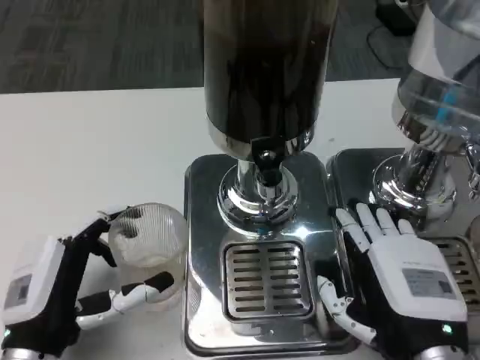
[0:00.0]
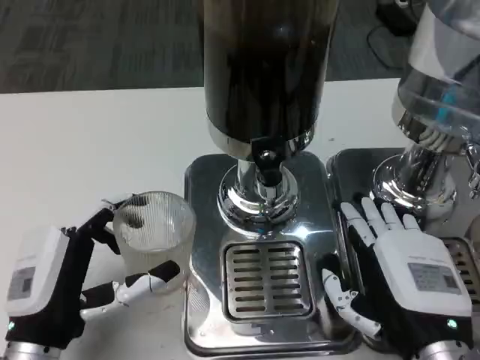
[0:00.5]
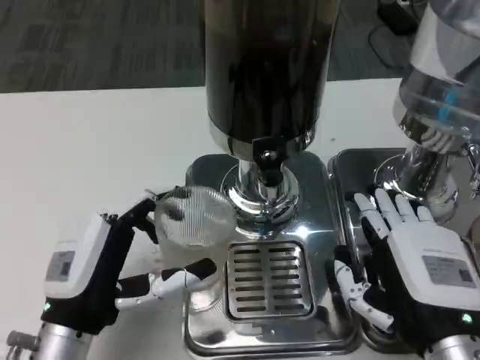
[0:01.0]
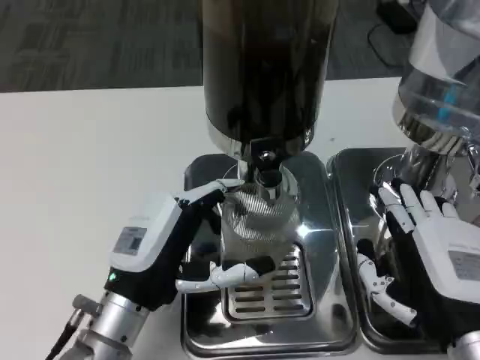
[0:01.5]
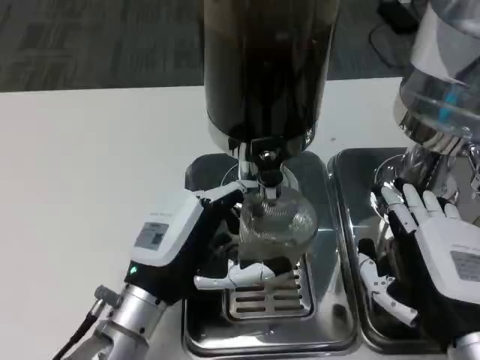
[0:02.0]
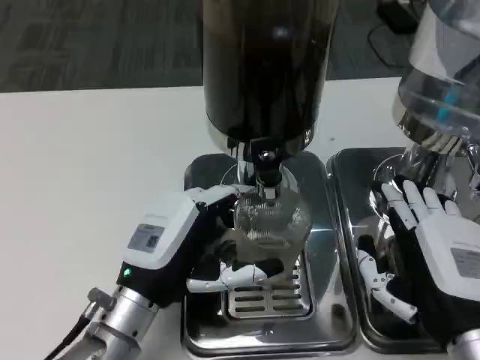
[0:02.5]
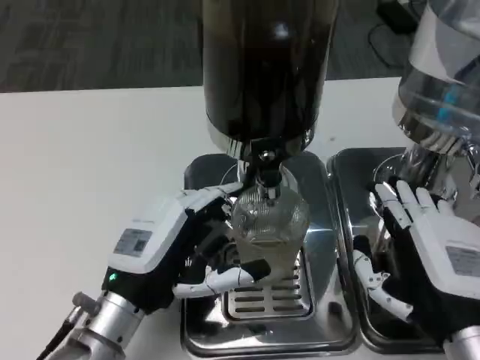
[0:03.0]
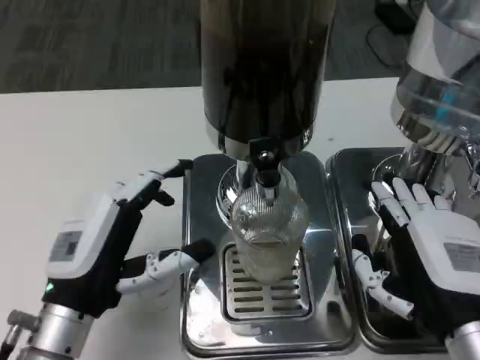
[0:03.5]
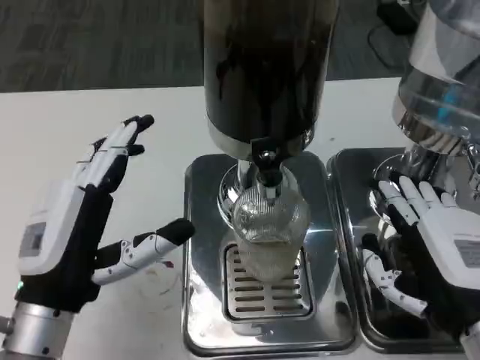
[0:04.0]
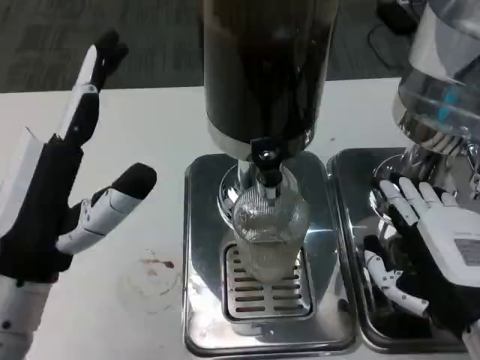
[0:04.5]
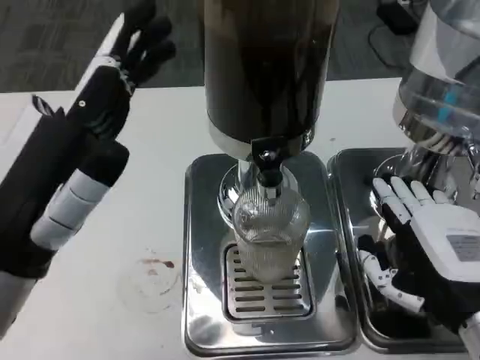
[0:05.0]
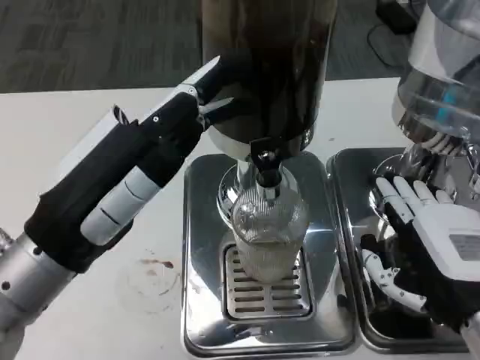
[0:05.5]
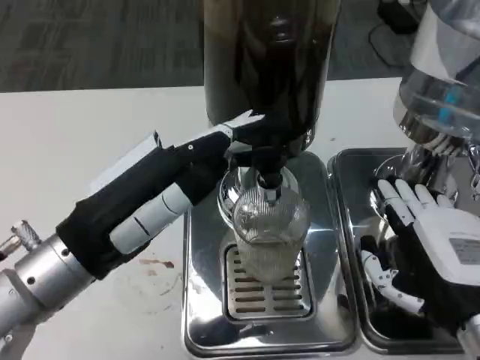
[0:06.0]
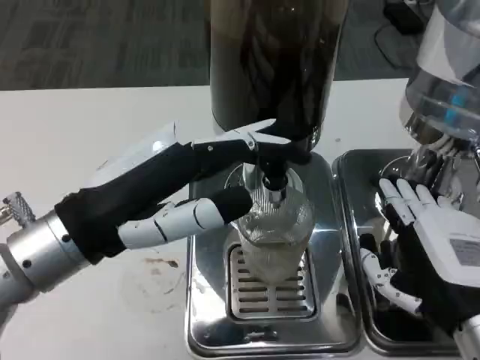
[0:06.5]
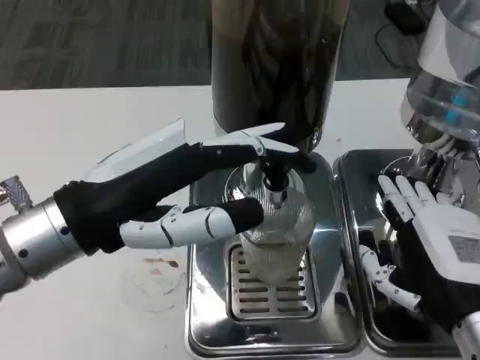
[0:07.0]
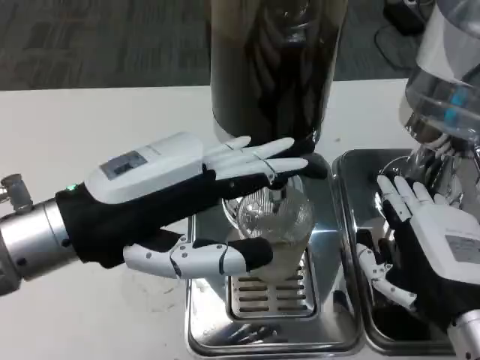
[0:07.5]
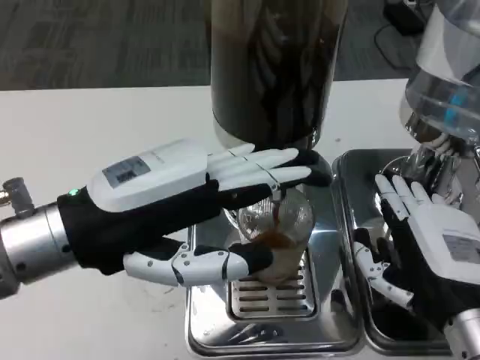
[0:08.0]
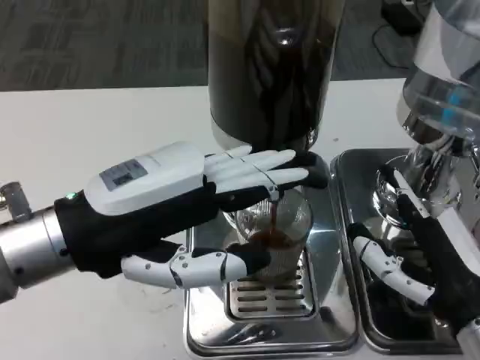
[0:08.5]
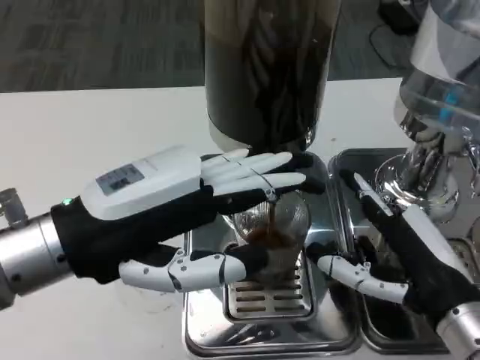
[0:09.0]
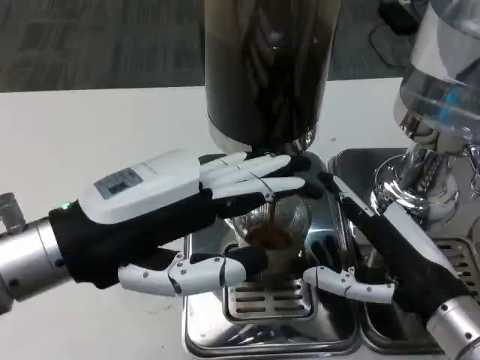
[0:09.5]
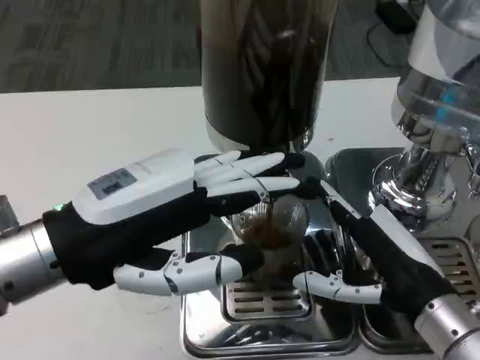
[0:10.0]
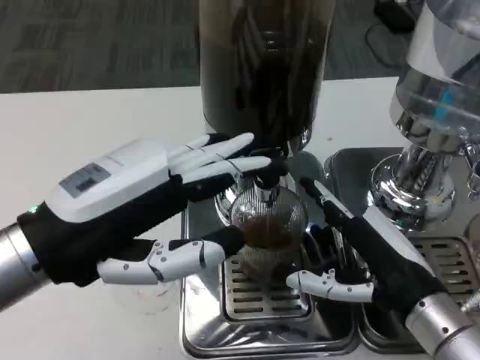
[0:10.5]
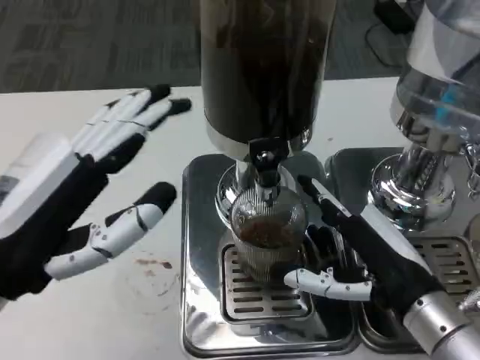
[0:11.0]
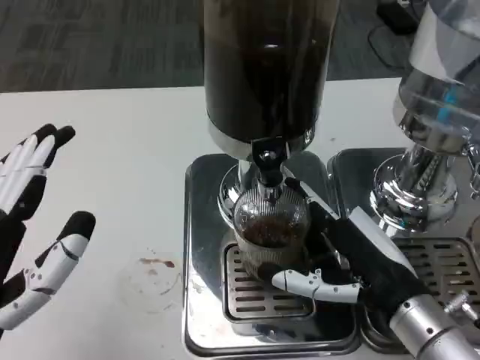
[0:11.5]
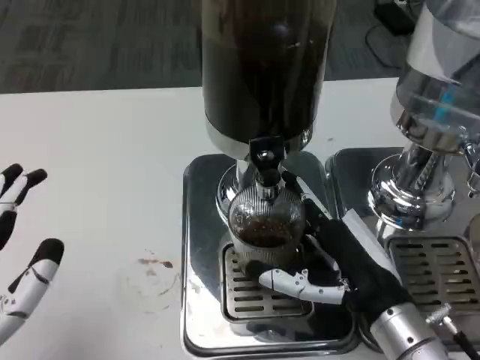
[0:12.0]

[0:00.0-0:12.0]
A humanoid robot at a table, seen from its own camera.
Task of the whole recording: Grasp the cup under the faucet to collect the drink, then remove the cup.
0:00.0 to 0:02.0: The left hand shifts roughly 10 cm to the right and forward.
0:02.0 to 0:04.0: The left hand goes approximately 10 cm upward and to the left.
0:04.0 to 0:06.0: The left hand goes about 10 cm upward.
0:06.0 to 0:08.0: The left hand ends up about 5 cm from where it was.
0:10.0 to 0:12.0: The left hand is displaced backward, downward and to the left by approximately 15 cm.

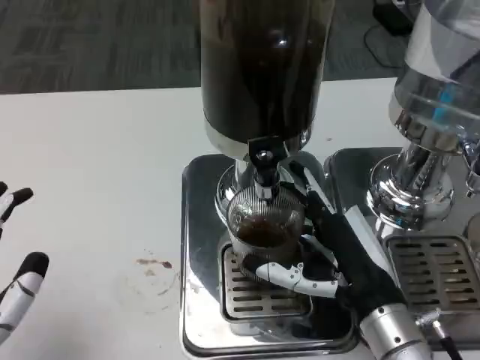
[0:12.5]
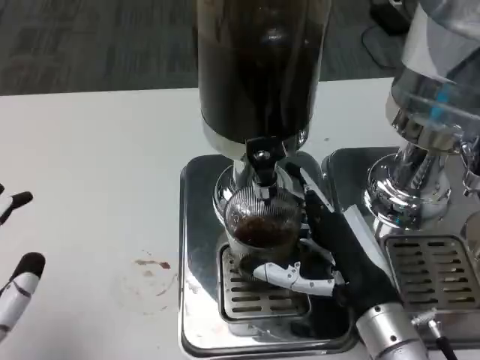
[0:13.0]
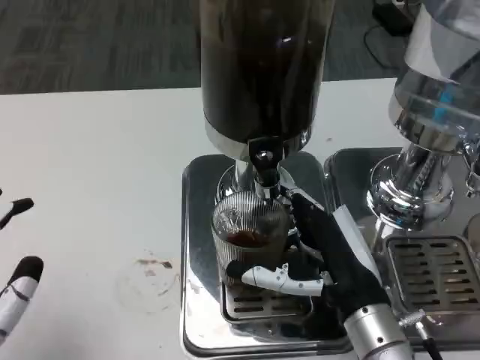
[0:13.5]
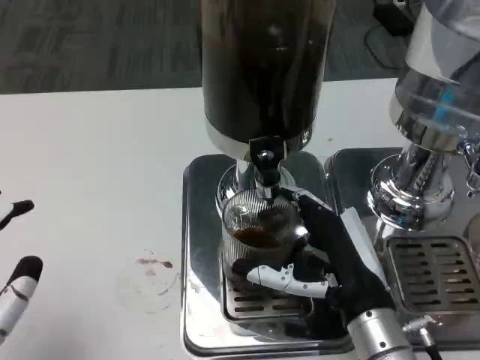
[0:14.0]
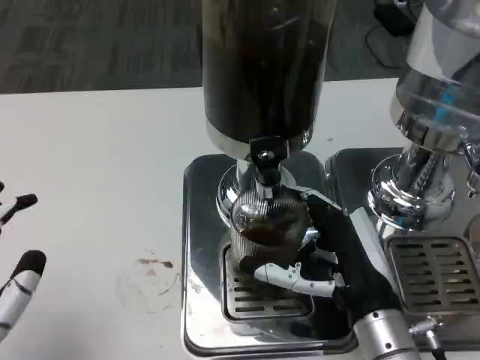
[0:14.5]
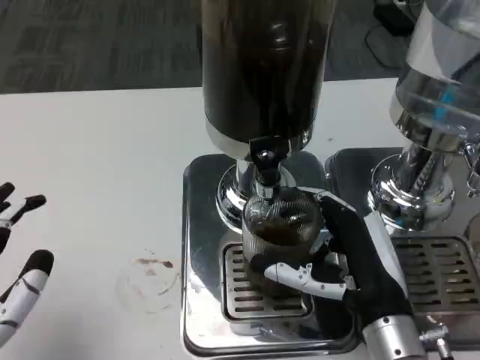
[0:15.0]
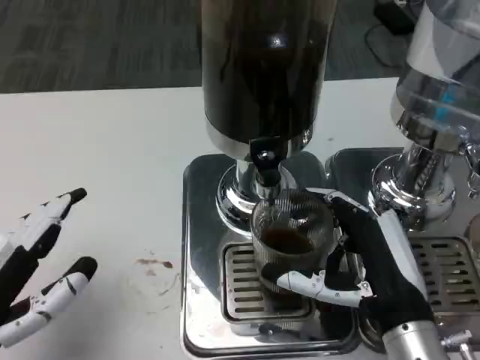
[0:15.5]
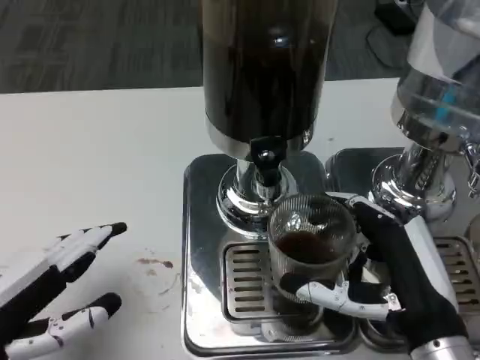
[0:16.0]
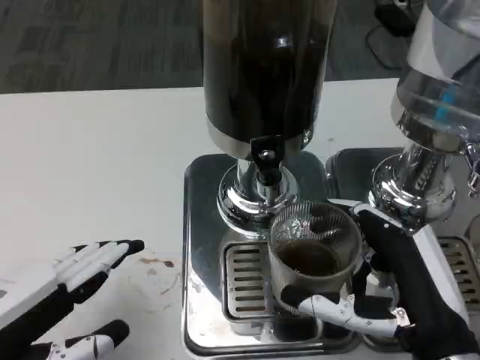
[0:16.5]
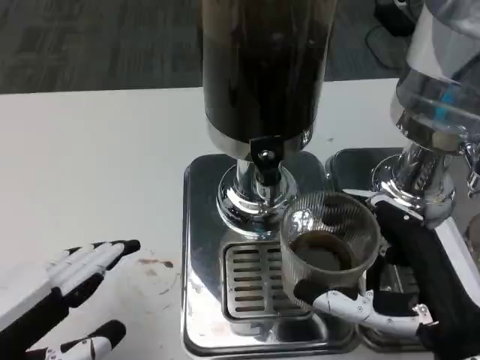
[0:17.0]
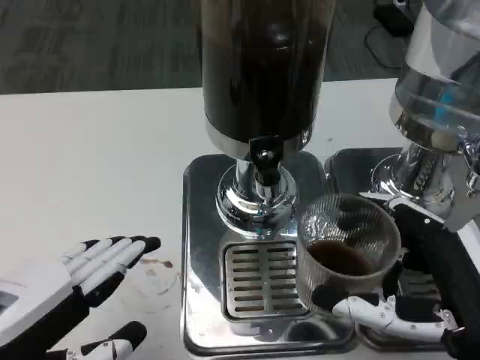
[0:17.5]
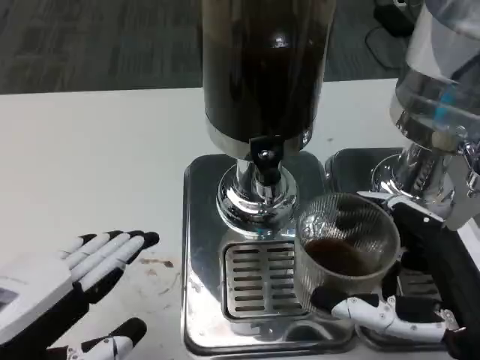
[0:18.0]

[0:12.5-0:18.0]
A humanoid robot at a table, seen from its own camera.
Task of the whole recording: Grasp the cup under the faucet to collect the drink, then remove the cup.
0:12.5 to 0:14.5: The hands move only a little.
0:14.5 to 0:16.0: The right hand changes place by approximately 5 cm. The left hand moves forward, approximately 5 cm.
0:16.0 to 0:18.0: The left hand moves about 5 cm. Meanwhile the right hand ends up roughly 5 cm from where it was.

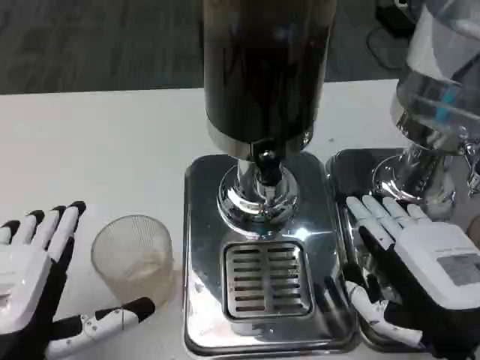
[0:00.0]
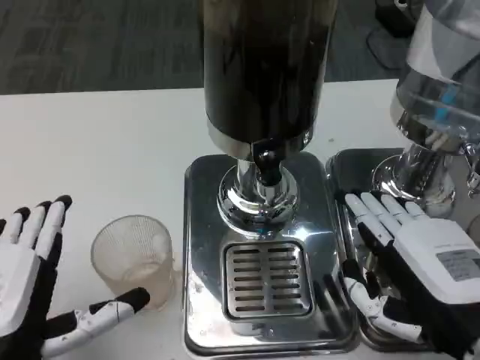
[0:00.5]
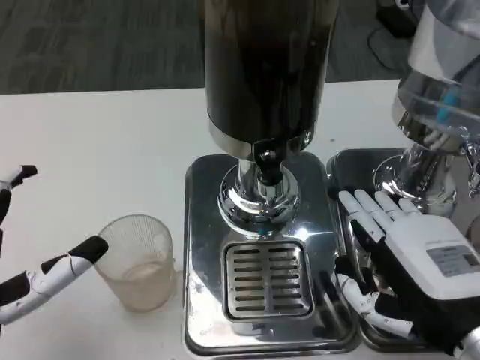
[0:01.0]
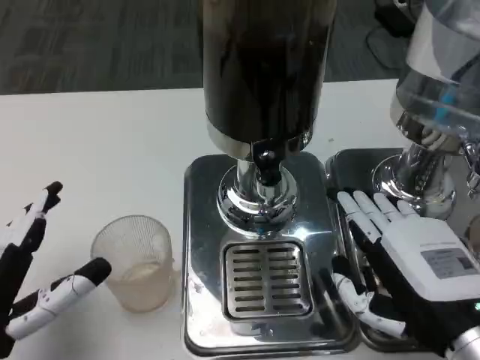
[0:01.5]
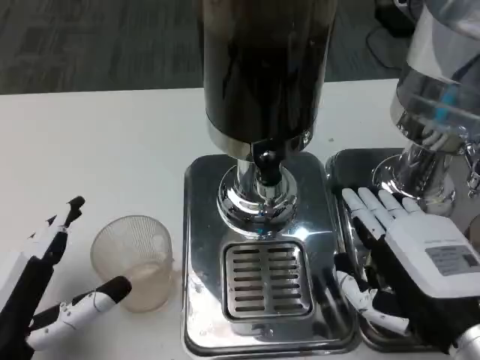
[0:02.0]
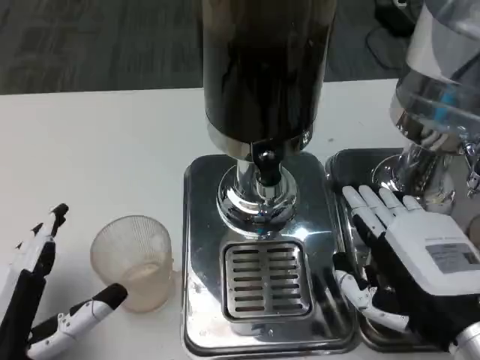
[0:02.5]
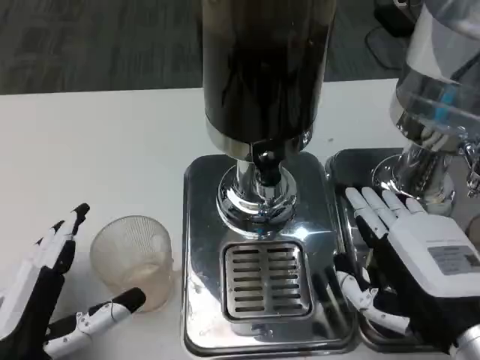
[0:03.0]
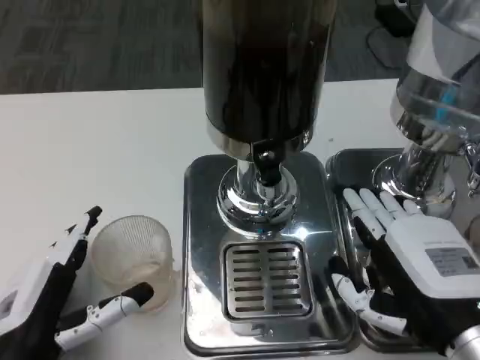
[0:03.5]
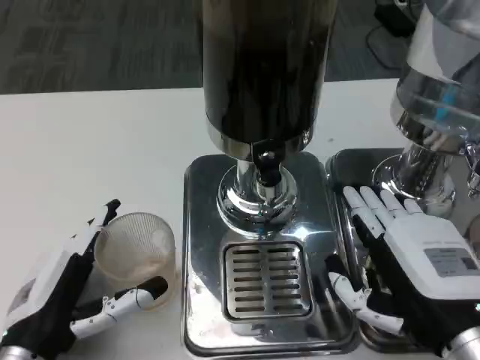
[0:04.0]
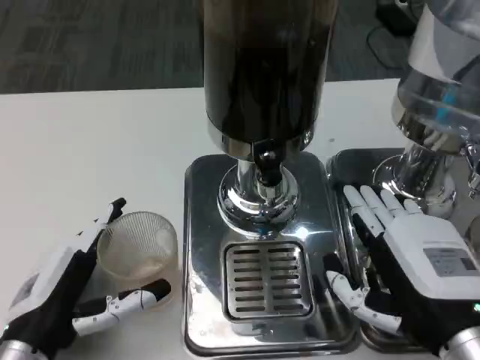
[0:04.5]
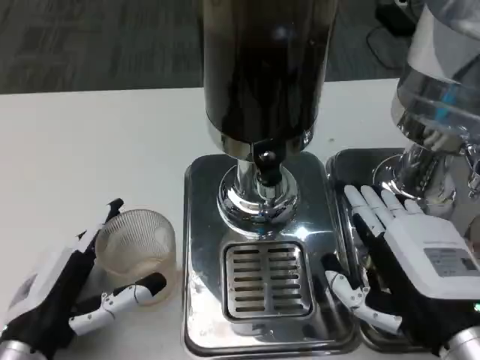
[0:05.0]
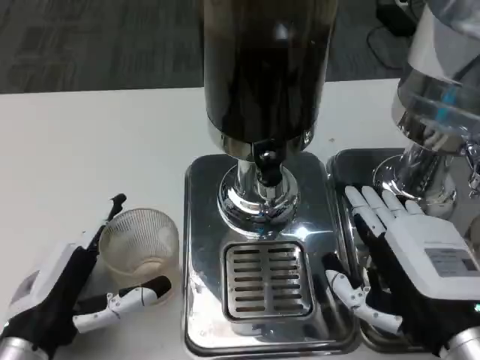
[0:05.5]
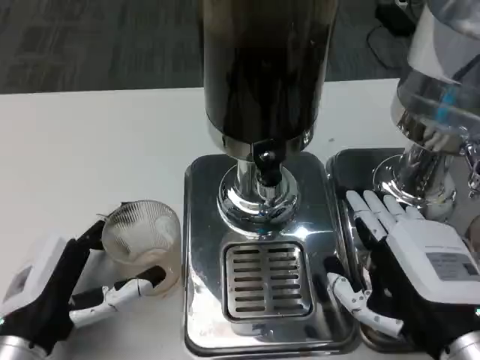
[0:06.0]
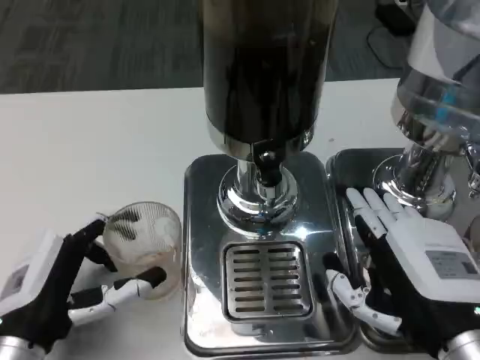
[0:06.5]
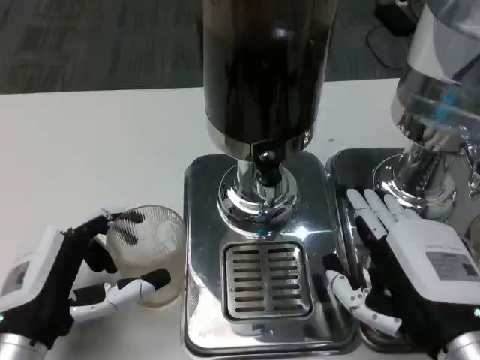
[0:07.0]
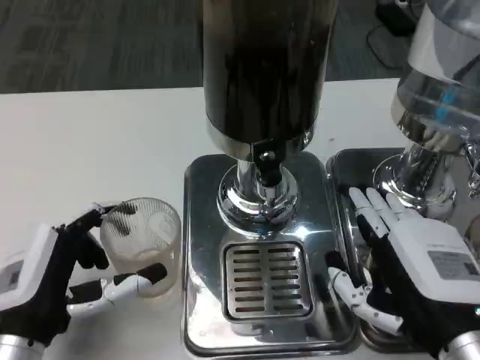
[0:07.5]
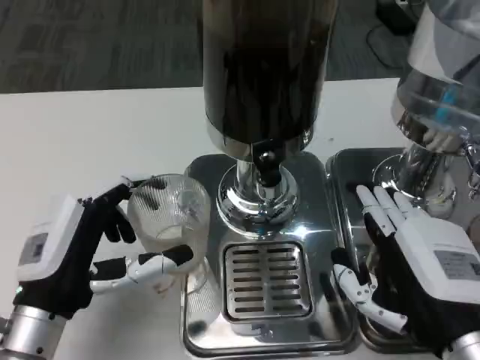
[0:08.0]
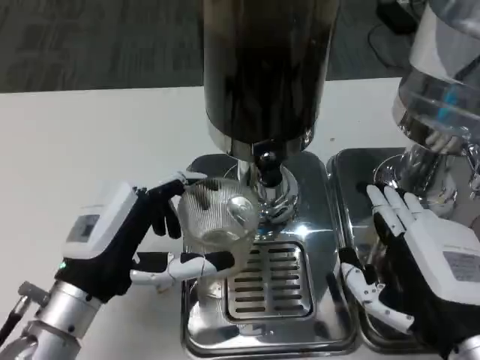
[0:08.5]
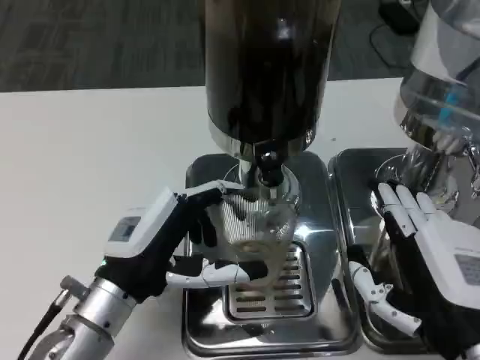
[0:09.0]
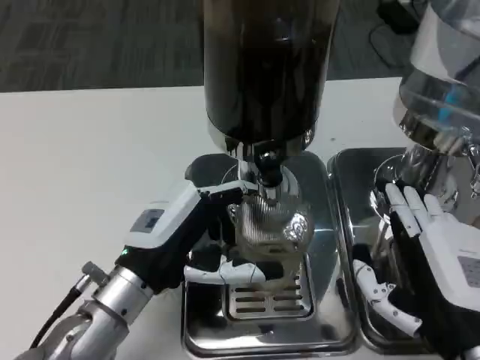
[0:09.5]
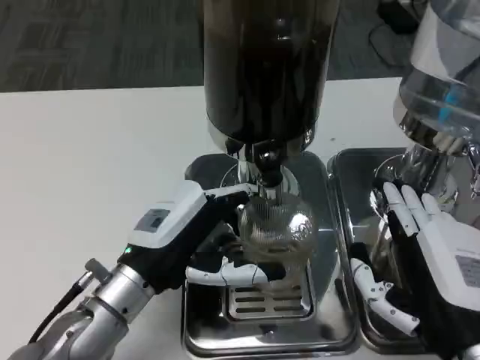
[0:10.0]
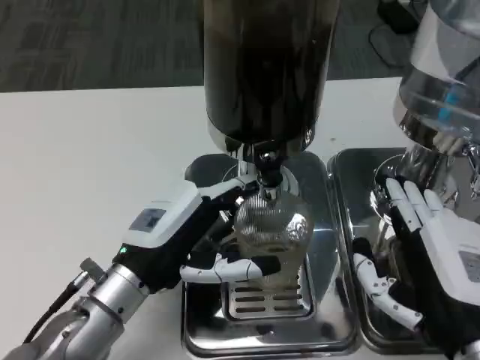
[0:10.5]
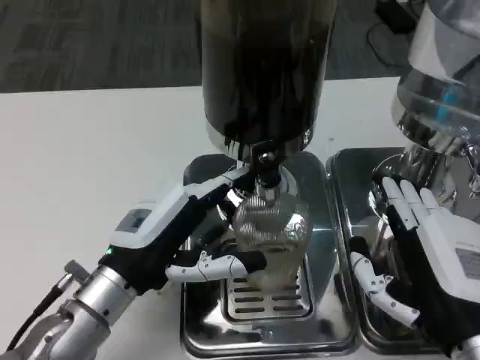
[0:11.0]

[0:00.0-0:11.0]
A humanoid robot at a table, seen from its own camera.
Task of the whole recording: Grasp the cup under the faucet to collect the drink, then remove the cup.
0:00.0 to 0:02.0: The left hand shifts by approximately 5 cm.
0:02.0 to 0:07.5: The hands move only a little.
0:07.5 to 0:09.0: The left hand moves to the right and forward, roughly 10 cm.
